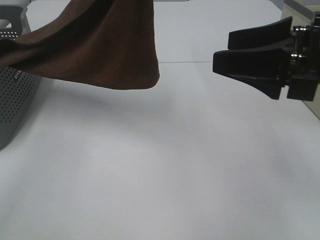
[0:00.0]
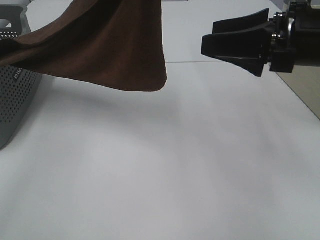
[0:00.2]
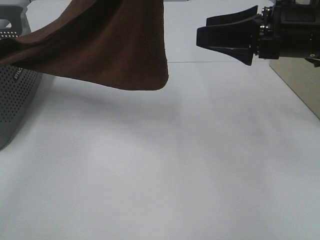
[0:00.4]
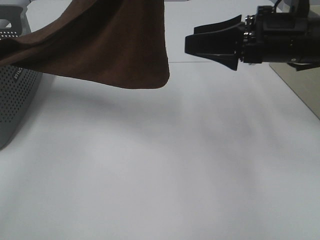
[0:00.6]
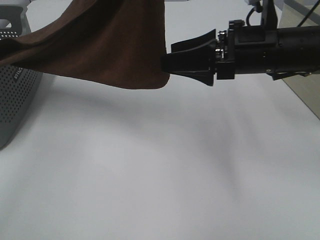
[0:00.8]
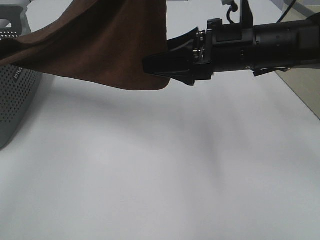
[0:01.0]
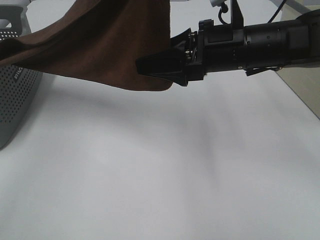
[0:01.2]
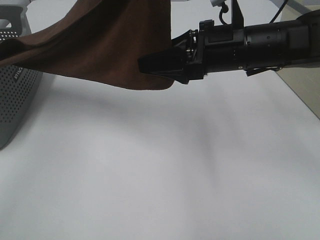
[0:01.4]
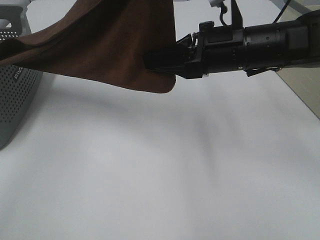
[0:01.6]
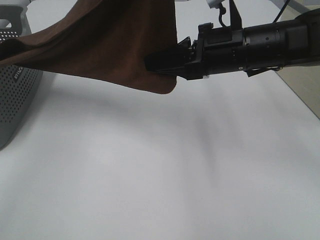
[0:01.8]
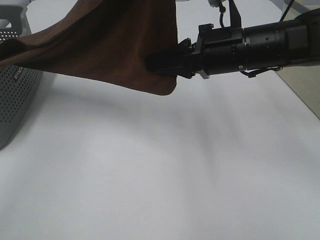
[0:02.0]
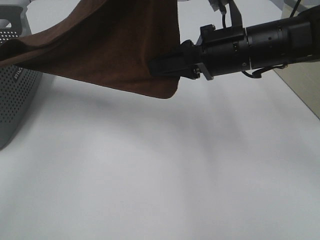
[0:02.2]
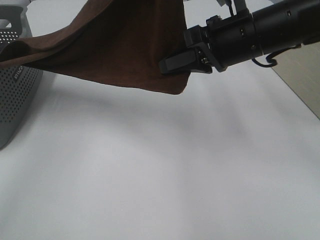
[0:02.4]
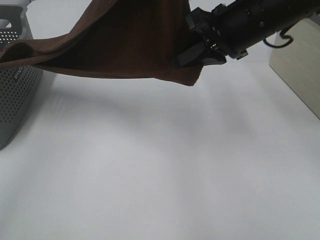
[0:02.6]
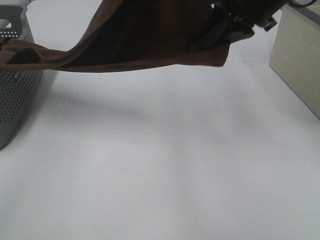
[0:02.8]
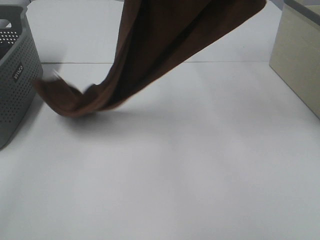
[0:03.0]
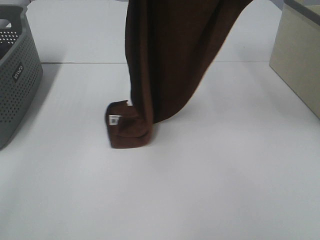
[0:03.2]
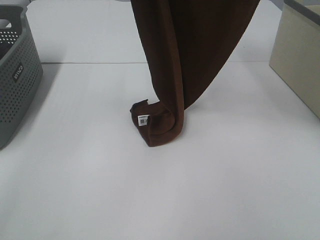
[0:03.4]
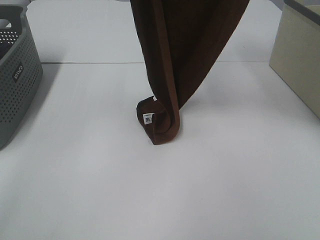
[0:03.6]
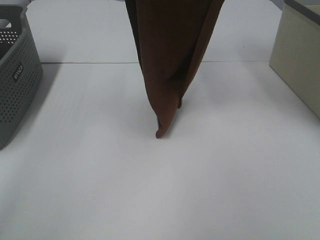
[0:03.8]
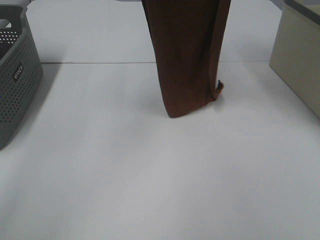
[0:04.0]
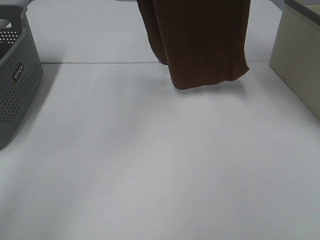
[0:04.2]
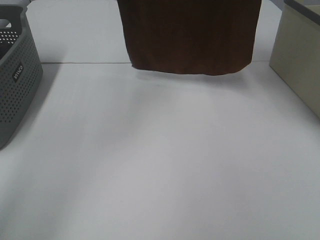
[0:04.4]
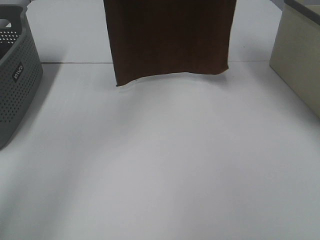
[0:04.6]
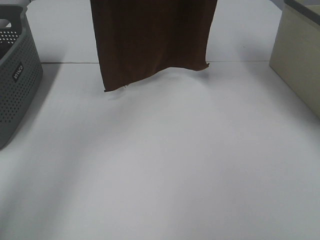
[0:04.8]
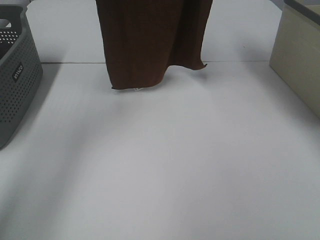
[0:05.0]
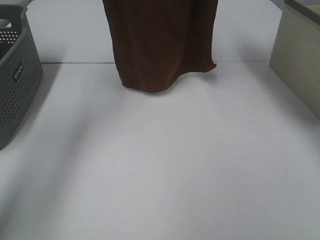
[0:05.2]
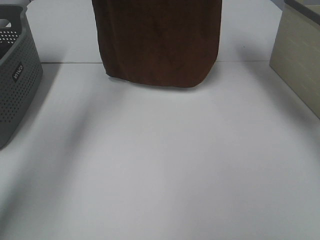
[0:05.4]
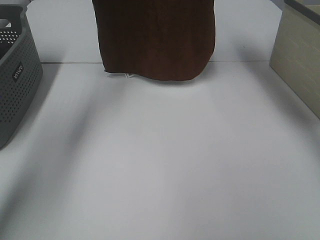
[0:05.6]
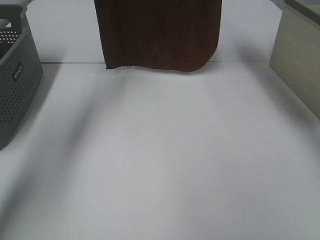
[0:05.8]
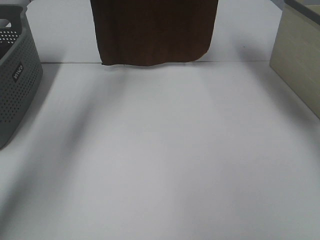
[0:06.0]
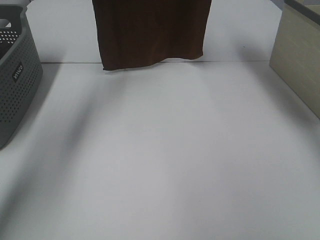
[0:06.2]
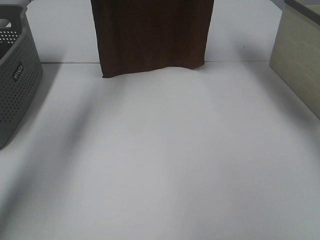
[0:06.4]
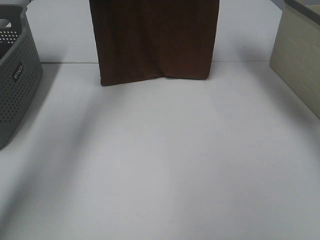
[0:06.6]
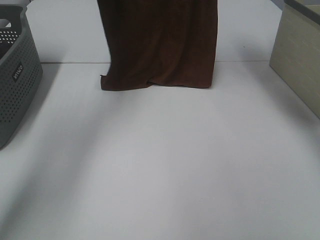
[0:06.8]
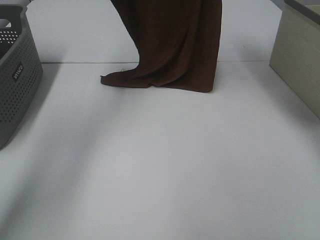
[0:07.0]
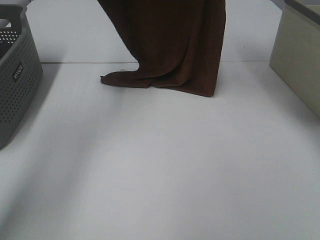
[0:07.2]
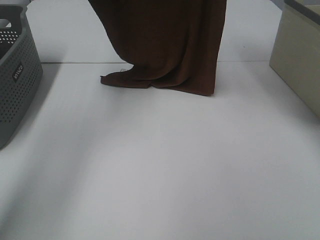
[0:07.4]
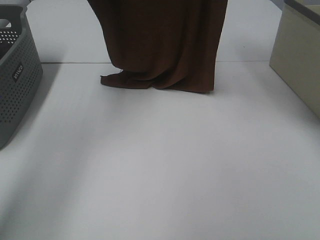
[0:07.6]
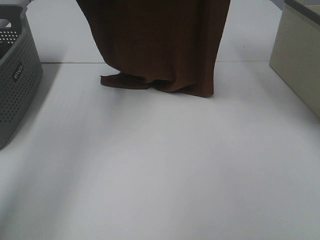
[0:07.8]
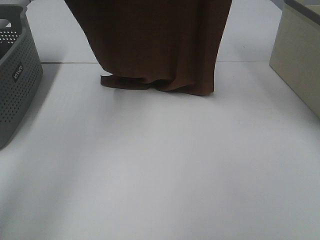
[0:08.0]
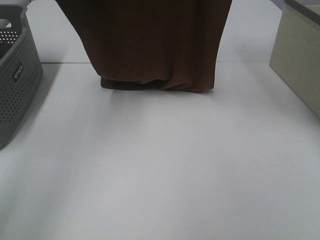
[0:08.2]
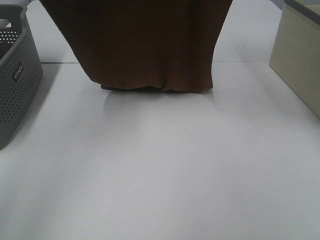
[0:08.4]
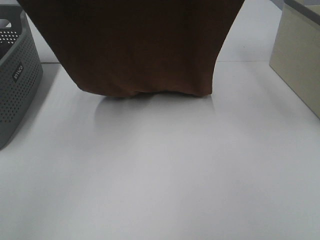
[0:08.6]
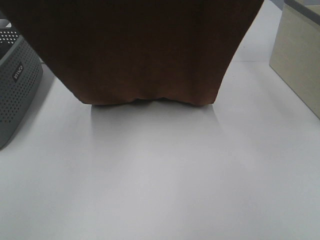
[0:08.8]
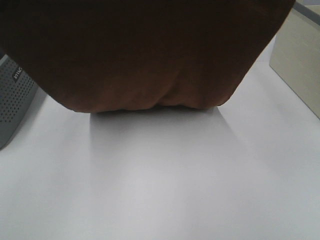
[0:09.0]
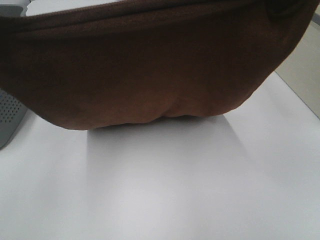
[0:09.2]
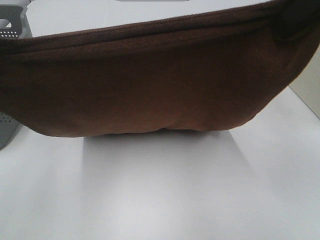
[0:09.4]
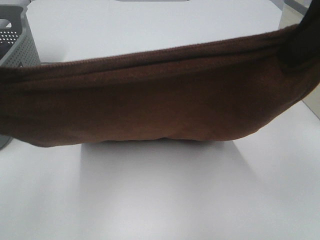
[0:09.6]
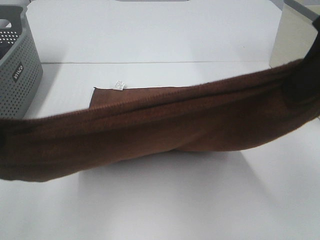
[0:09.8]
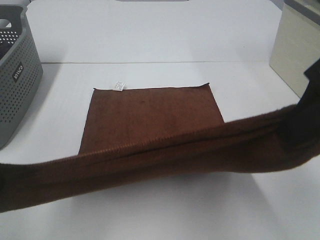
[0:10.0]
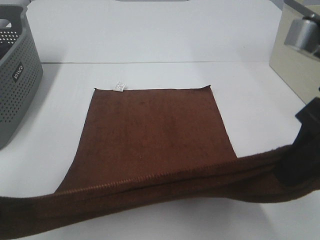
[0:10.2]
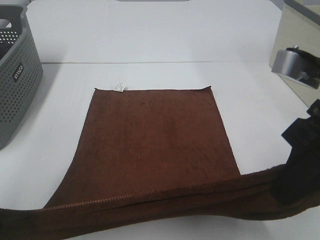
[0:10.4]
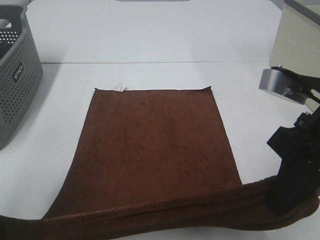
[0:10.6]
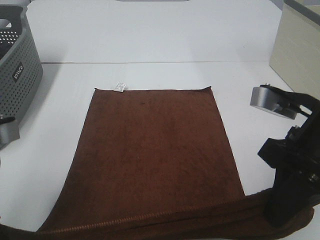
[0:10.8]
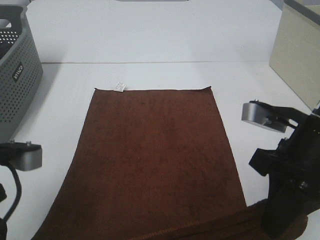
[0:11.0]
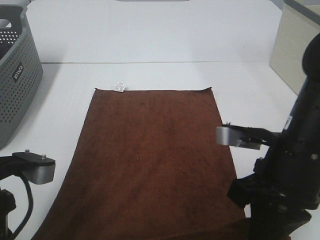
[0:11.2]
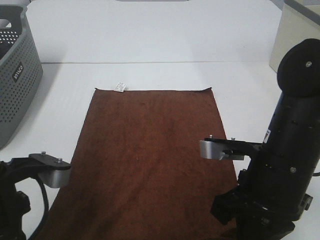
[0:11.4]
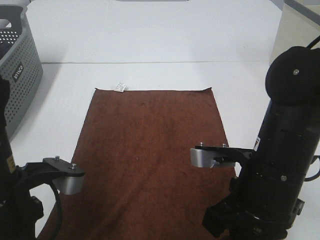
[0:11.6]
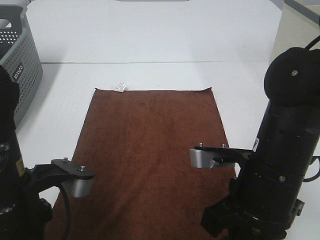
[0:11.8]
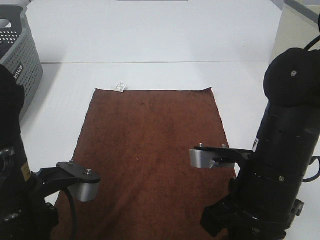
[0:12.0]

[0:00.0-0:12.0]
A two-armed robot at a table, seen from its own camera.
Task of the whole recording: Remove the towel and place it.
Step, 1.8 to 8.2 s: Left hand: spread the brown towel flat on the table.
Step, 1.8 to 8.2 s: Right hand: spread the brown towel flat on the table.
0.0 to 1.6 s: The right gripper heads forward and to the left, covering roughly 15 cm, and closes up.
1.6 to 3.0 s: The right gripper goes roughly 20 cm upward.
3.0 to 4.4 s: The left gripper goes some 15 cm forward and to the left. The right gripper is displaced upward by roughly 10 cm.
4.4 to 6.0 s: The right gripper travels forward and downward by about 10 cm. Meanwhile the left gripper travels forward by approximately 10 cm.
6.0 to 7.6 s: Both grippers move backward, roughly 5 cm.
7.6 to 9.0 s: Both grippers move backward, roughly 20 cm.
9.0 to 10.4 s: The grippers both shift downward and backward by some 20 cm.
10.4 to 12.0 s: The left gripper goes some 10 cm to the right and downward. The right gripper is displaced downward and to the left by about 15 cm.

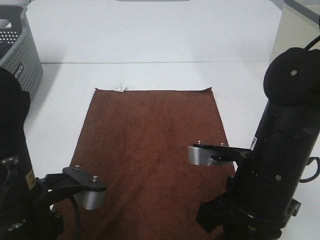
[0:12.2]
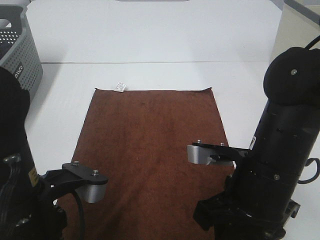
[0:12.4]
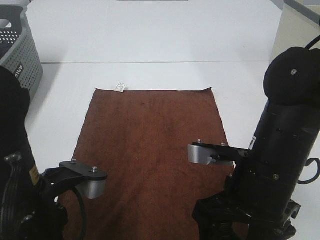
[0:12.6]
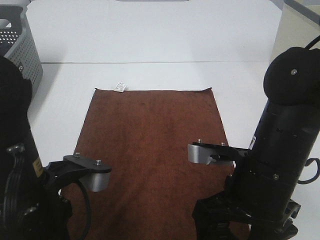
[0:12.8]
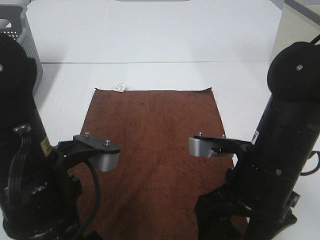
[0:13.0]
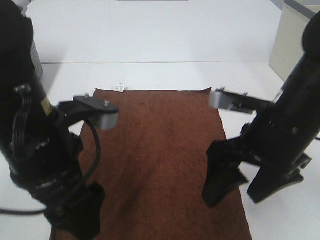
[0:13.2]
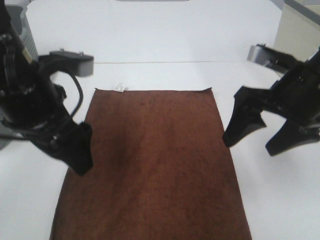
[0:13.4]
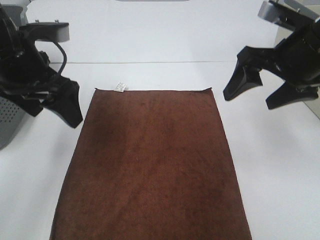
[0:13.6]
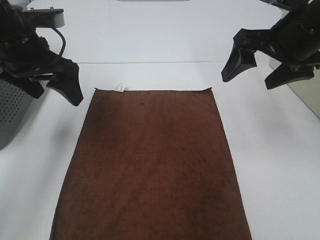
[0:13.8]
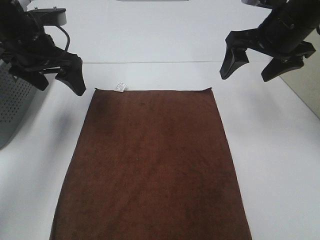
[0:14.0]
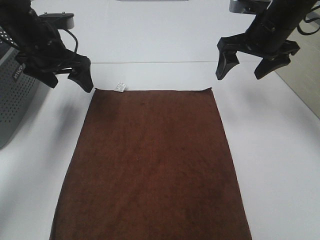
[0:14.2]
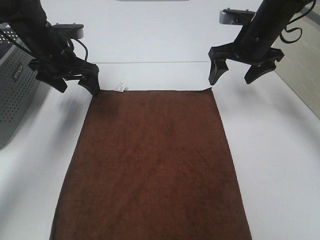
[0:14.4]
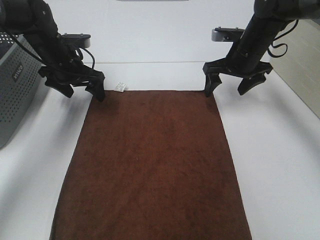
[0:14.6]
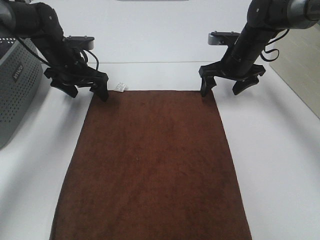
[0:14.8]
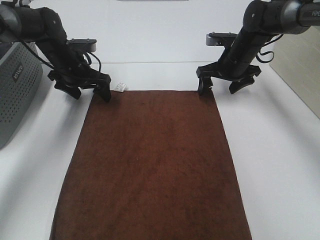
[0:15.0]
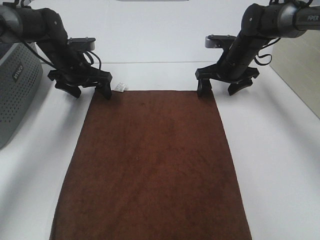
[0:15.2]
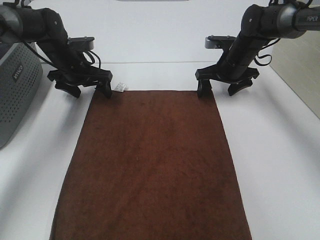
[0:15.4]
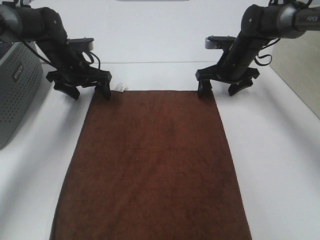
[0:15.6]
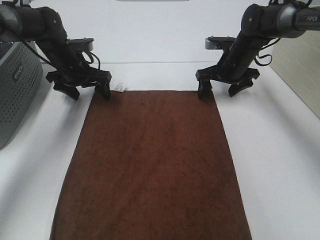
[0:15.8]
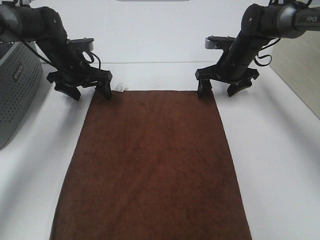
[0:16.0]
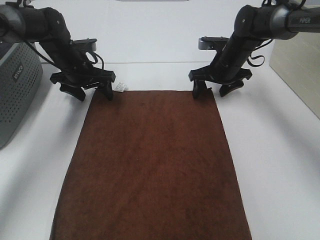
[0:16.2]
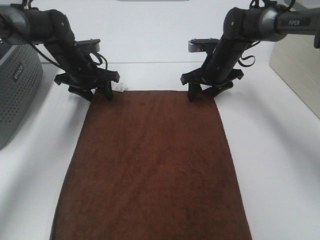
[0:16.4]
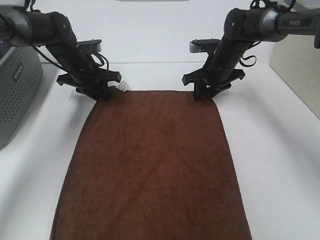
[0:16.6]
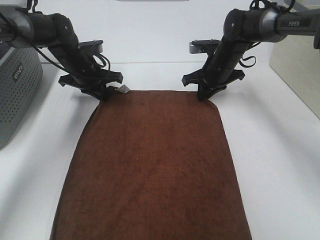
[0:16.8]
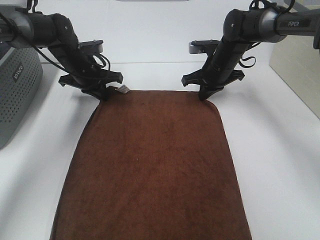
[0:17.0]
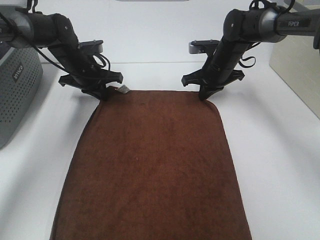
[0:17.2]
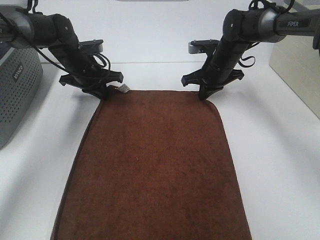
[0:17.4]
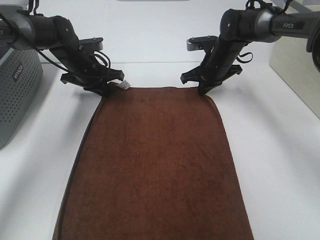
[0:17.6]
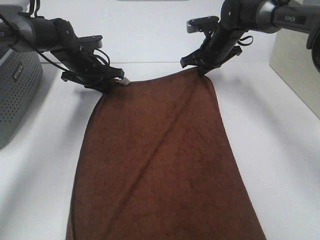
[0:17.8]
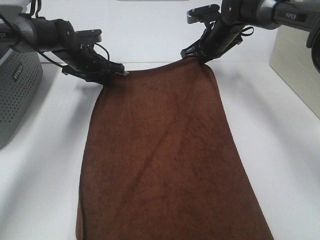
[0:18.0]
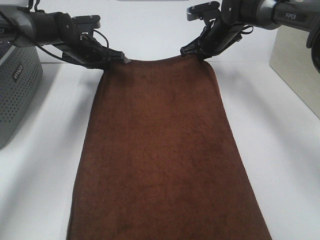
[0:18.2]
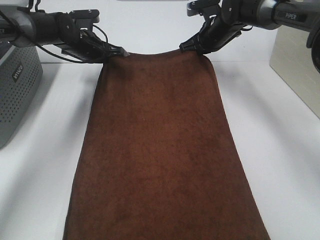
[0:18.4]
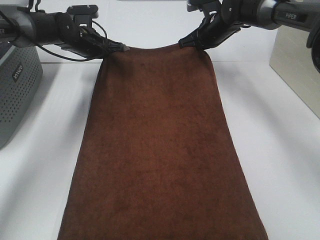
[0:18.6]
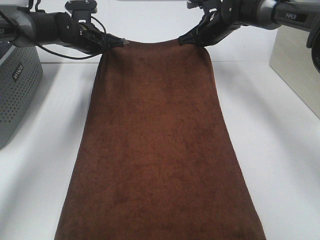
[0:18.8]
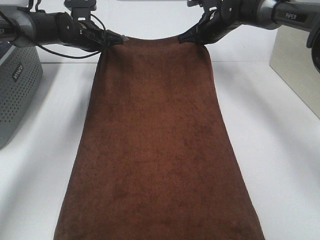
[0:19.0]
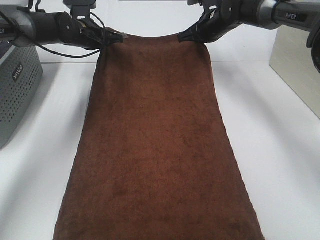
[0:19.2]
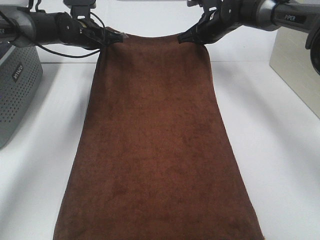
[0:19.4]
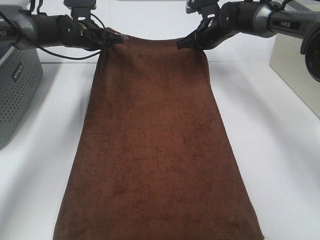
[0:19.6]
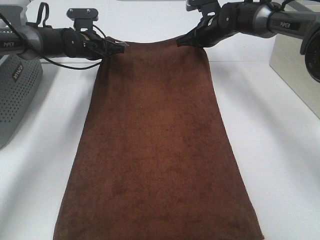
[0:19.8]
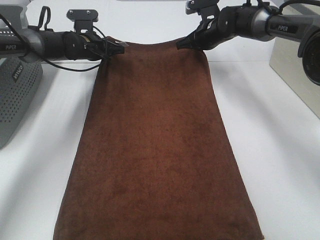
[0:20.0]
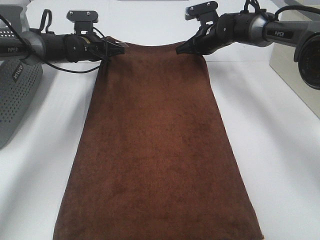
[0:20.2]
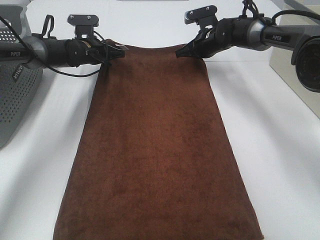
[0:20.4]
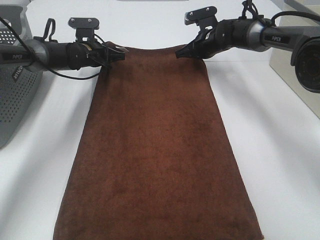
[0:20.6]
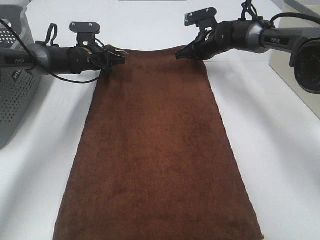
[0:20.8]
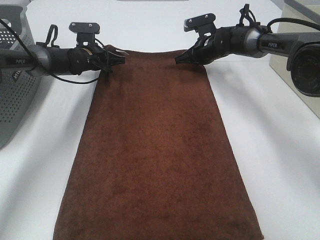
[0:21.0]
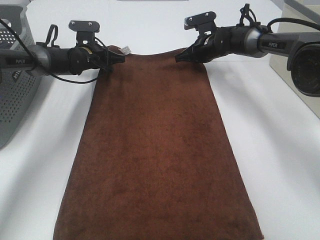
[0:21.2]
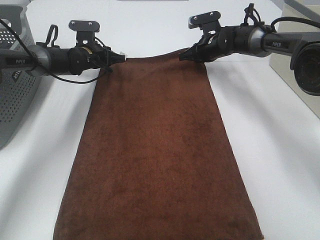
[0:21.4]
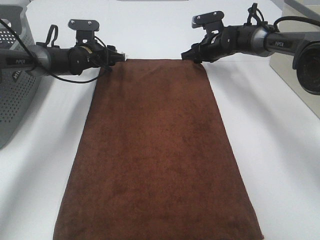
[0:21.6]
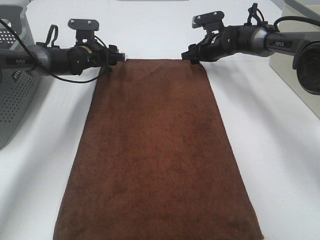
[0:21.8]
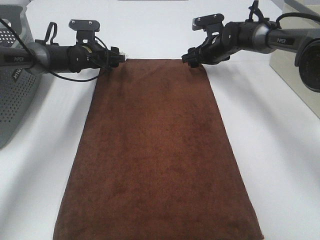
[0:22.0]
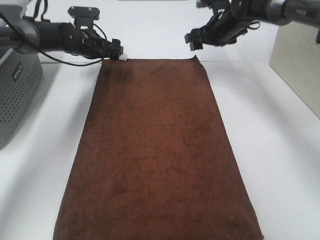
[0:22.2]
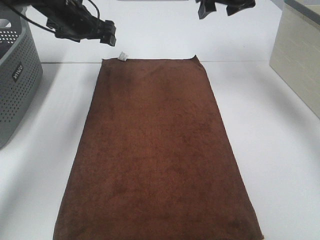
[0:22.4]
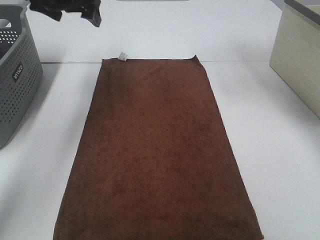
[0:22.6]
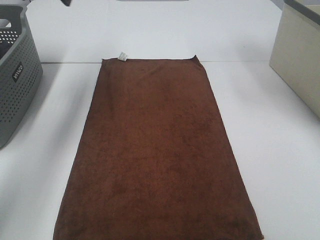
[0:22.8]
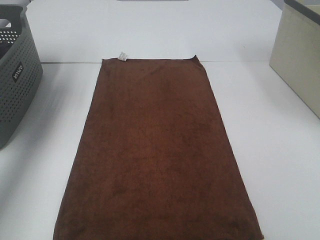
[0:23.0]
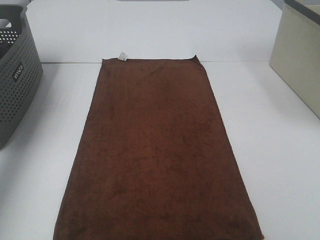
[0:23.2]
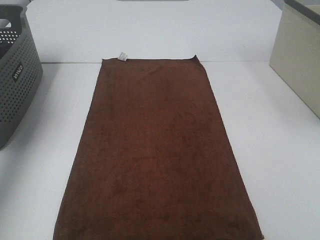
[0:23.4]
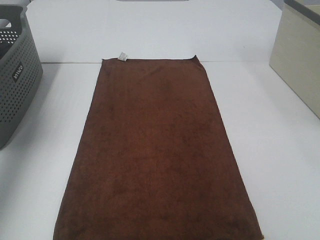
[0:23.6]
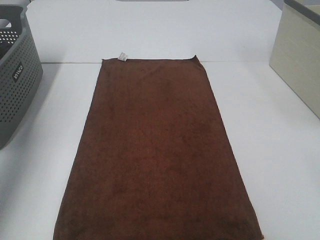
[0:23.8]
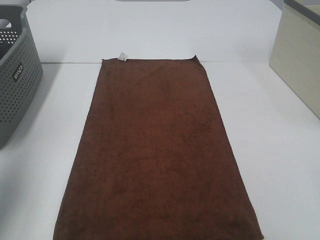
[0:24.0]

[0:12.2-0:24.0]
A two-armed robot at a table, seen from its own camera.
Task of the whole recording: Remove the towel and place it.
Step, 12.2 to 15.0 s: Left hand:adjust the brown towel.
Step, 12.2 to 15.2 s: Right hand:adjust the brown towel.
12.2 to 13.6 s: The right gripper moves forward, upward and to the right, about 15 cm, and opens, while the left gripper heads forward, covering some 15 cm, and opens.
13.6 to 15.2 s: The grippers both shift forward and downward by approximately 25 cm.
15.2 to 16.6 s: The right gripper closes up, while the left gripper closes up.
16.6 to 18.2 s: The right gripper shifts roughly 5 cm upward, and closes.
18.2 to 19.6 s: There are only small adjustments of the grippers.
19.6 to 21.0 s: The left gripper travels downward by roughly 5 cm.
21.0 to 22.6 s: The left gripper shifts about 20 cm upward, and opens up; the right gripper heads upward and backward, covering some 25 cm, and opens.
22.6 to 24.0 s: The right gripper goes about 35 cm backward. Meanwhile the left gripper goes approximately 35 cm backward and to the left.
